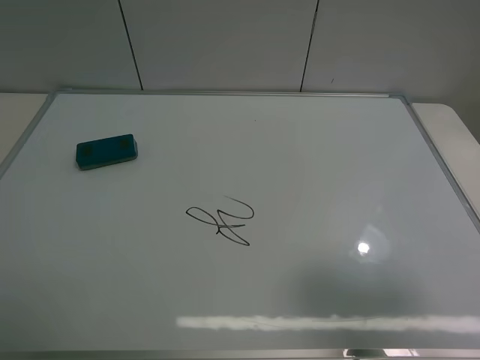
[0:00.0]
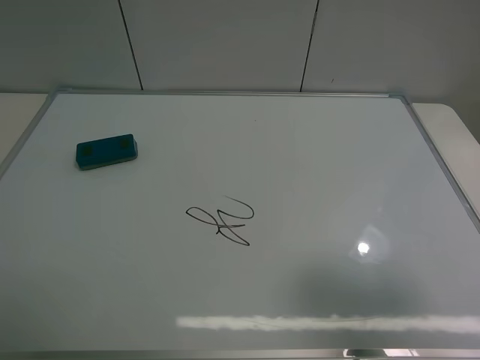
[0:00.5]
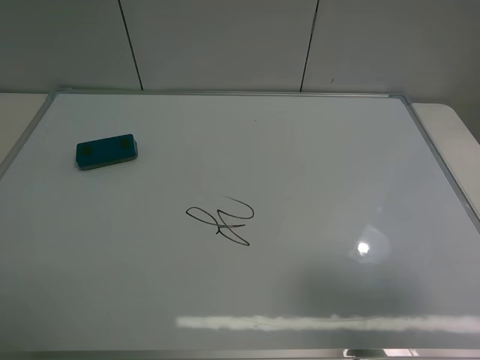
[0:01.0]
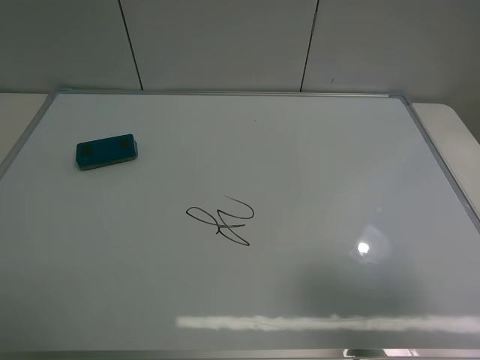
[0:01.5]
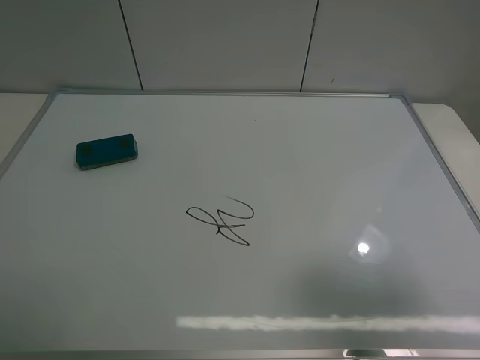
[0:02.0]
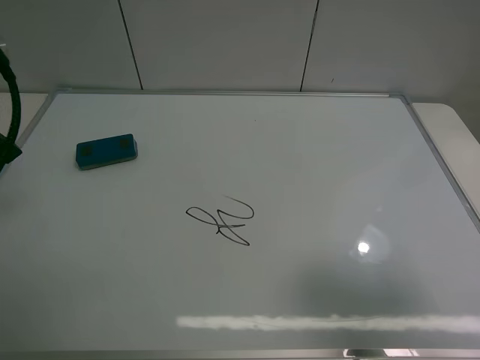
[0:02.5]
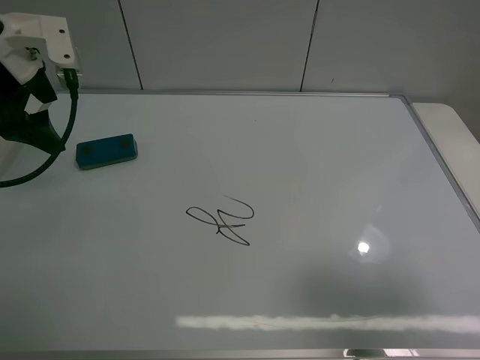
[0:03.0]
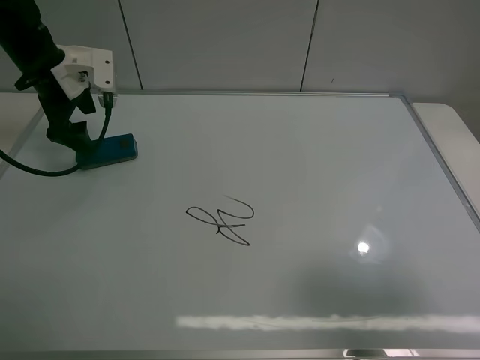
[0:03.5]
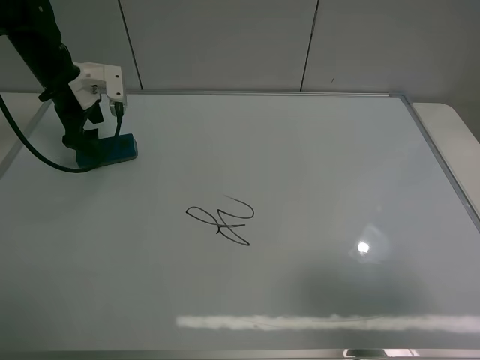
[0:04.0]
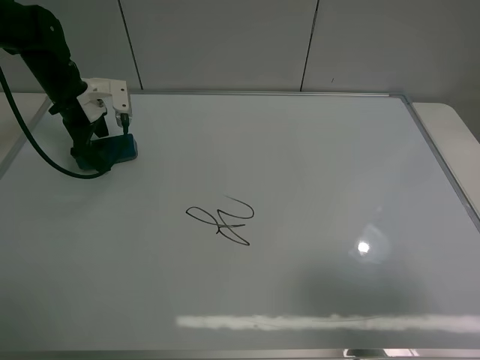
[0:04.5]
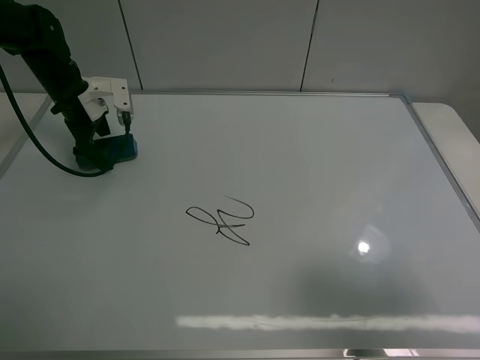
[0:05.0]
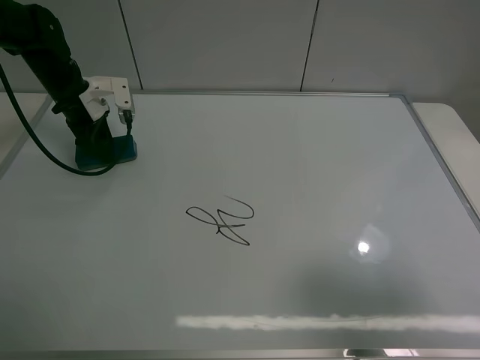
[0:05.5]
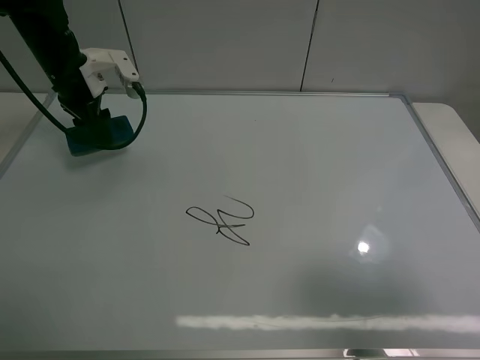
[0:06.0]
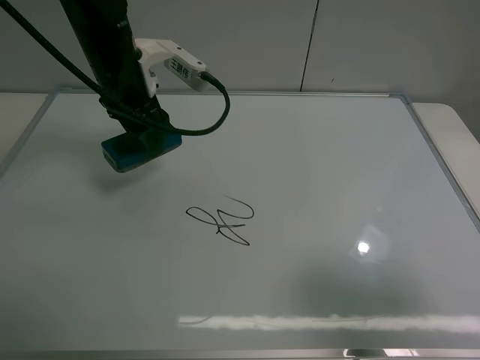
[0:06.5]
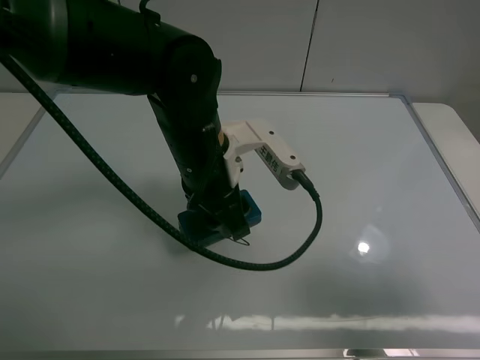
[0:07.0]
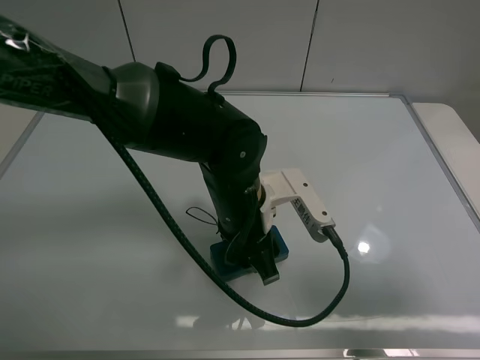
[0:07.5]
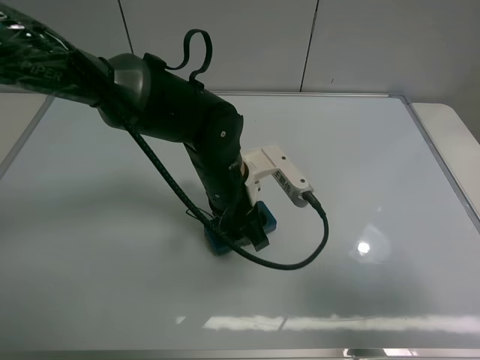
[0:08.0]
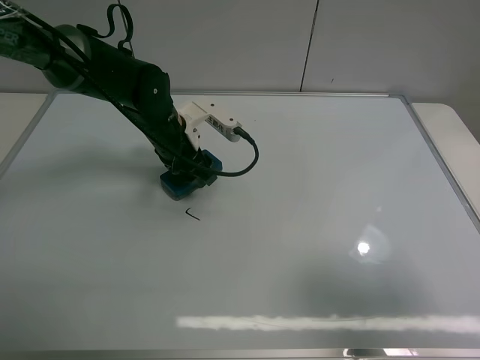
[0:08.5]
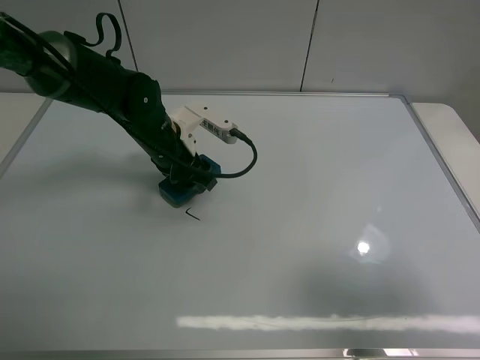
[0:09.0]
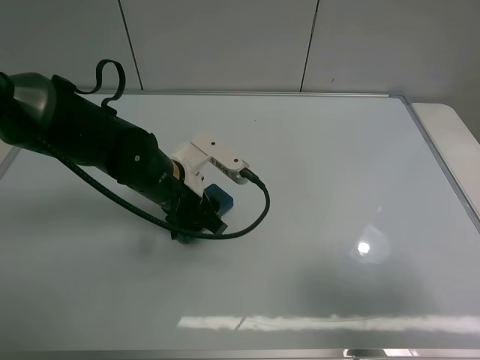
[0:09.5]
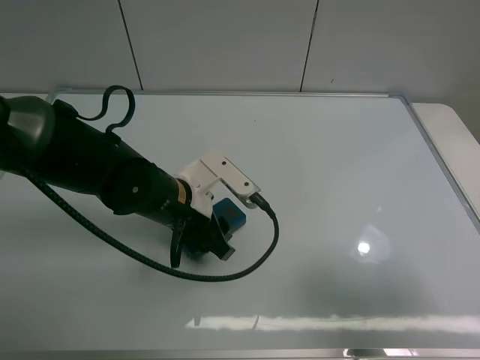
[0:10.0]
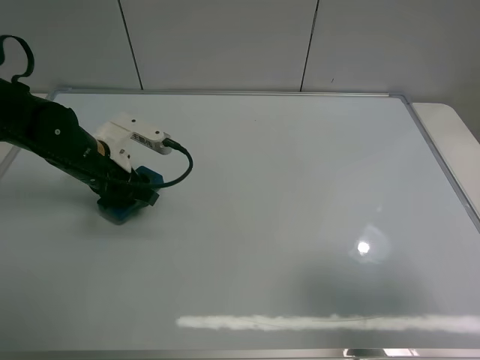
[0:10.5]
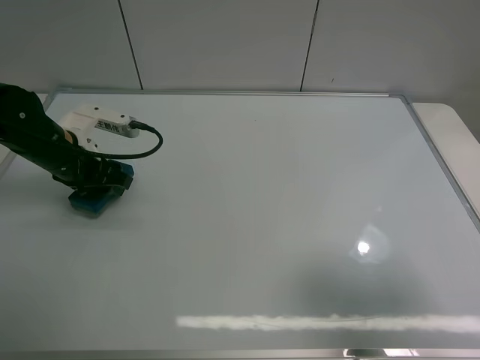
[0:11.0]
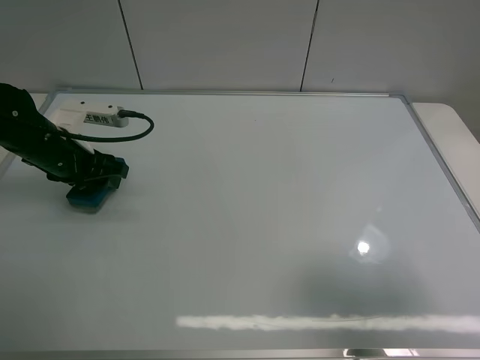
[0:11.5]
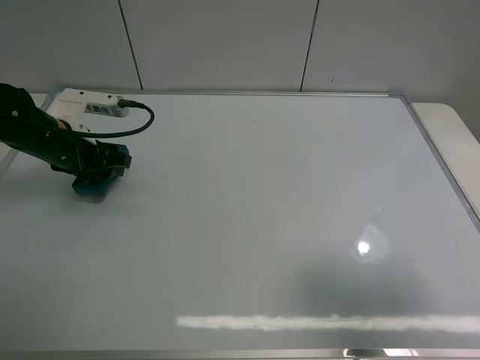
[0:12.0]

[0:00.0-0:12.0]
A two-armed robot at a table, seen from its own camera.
Task of the whole recording: use the left claw to pick up the whiteboard eraser, wipe the notes on the whiteboard clean, and then put them back in place.
Step, 0:00.0 to 0:05.5: Grasp the eraser with the left gripper.
Step, 0:06.0 to 0:10.5: Grasp the eraser and wipe the blackboard with the left gripper.
0:02.0 to 0:04.0: The left gripper moves forward, about 35 cm.
0:04.0 to 0:06.0: The left gripper closes.
0:06.0 to 0:08.0: The left gripper shifts some 25 cm to the right and backward.
0:08.0 to 0:10.0: The left gripper is displaced to the left by about 5 cm, and moves roughly 10 cm forward and comes back.
0:10.0 to 0:12.0: The left gripper heads to the left and forward, covering roughly 20 cm.

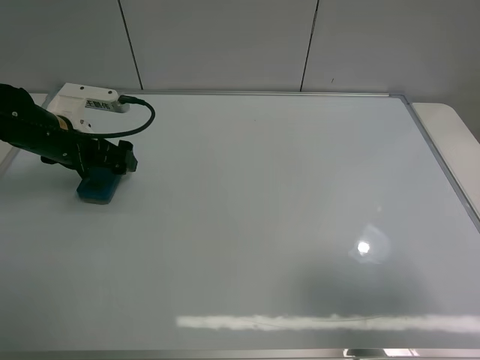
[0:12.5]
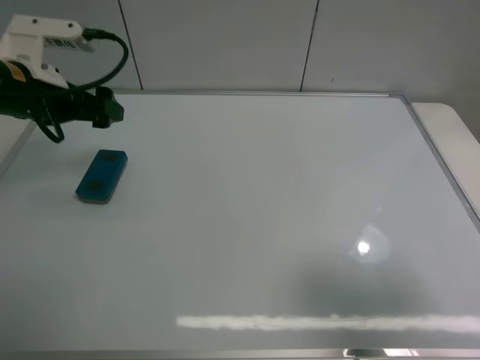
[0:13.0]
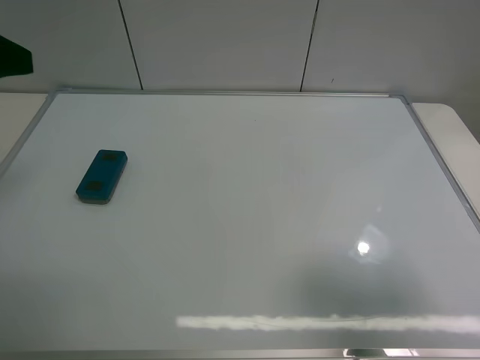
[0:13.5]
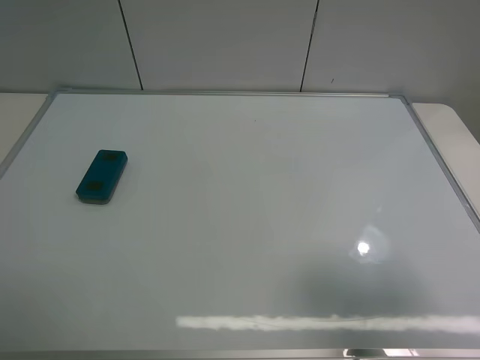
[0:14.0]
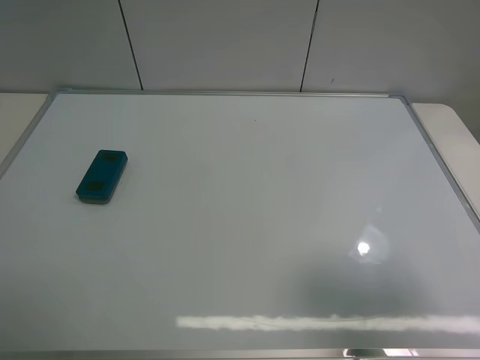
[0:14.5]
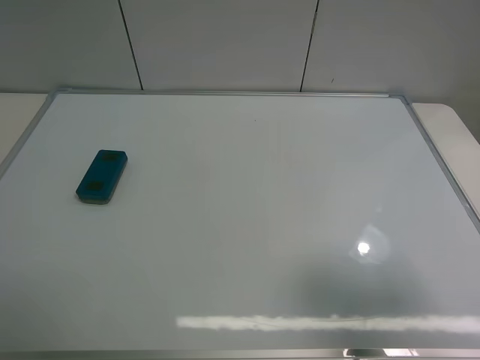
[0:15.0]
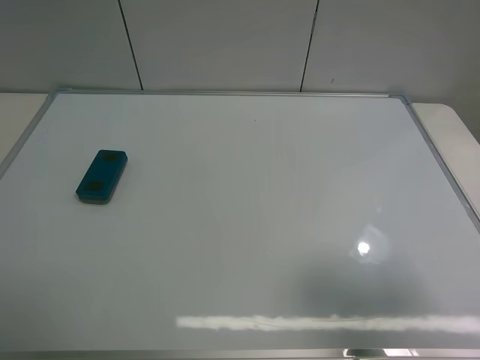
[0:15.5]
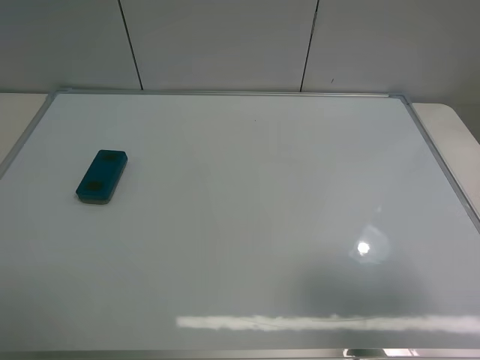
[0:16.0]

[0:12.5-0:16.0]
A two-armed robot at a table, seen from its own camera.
Task of the whole recording: use the left claw to pick up the whiteboard eraser, wipe the notes on the whiteboard clean, and then put them back in place.
0:12.5 to 0:14.5: The left gripper travels backward and upward by about 40 cm.

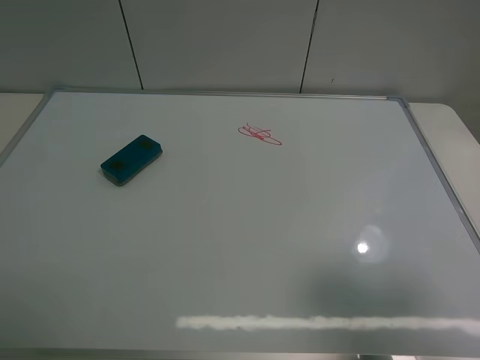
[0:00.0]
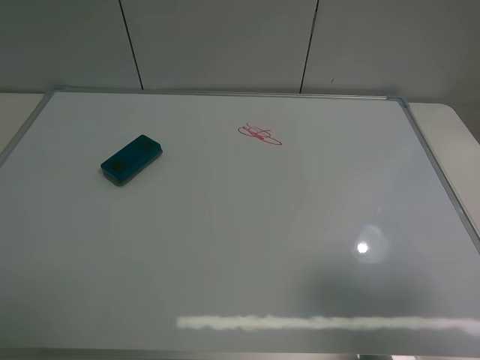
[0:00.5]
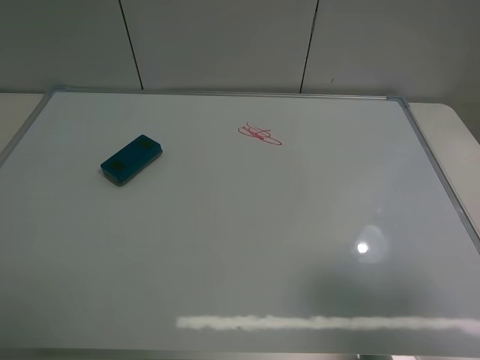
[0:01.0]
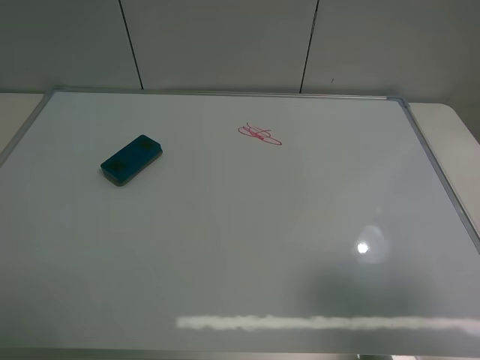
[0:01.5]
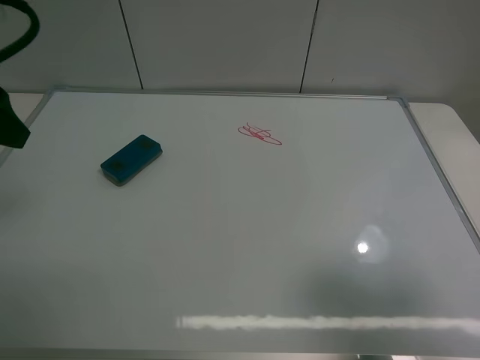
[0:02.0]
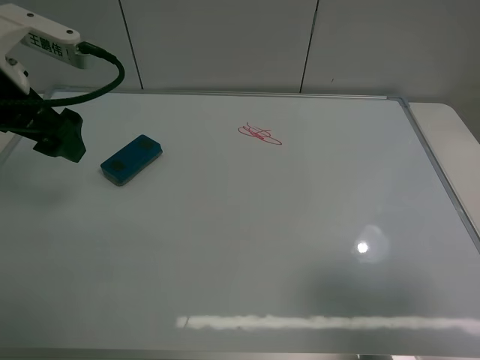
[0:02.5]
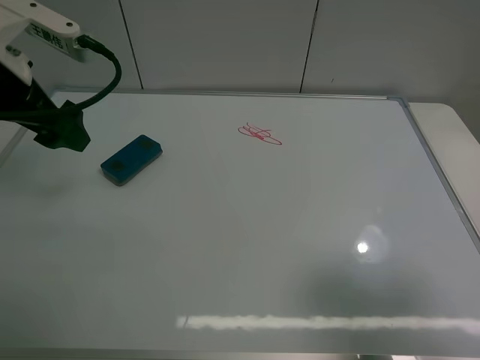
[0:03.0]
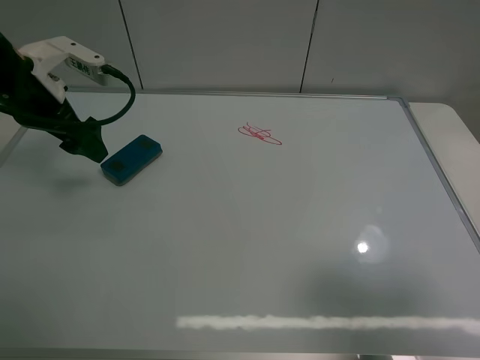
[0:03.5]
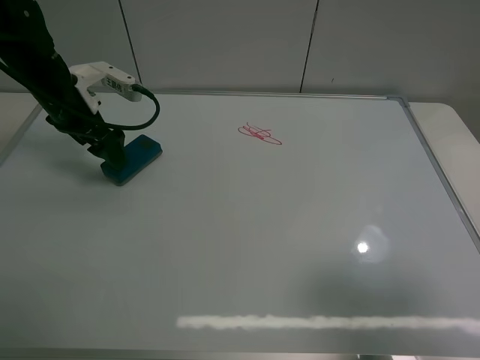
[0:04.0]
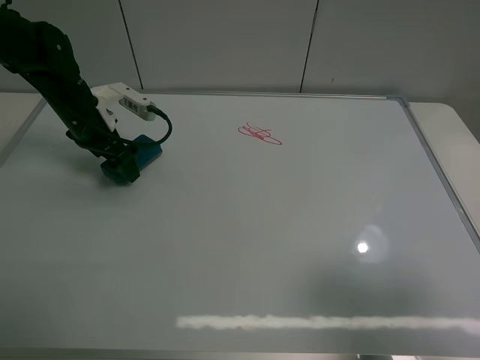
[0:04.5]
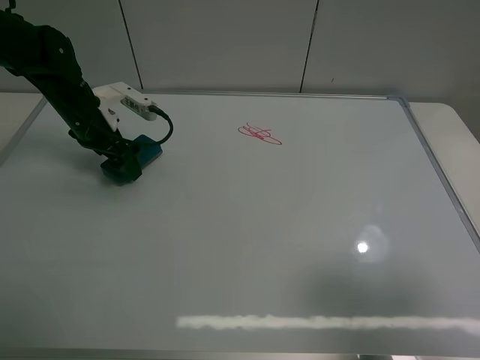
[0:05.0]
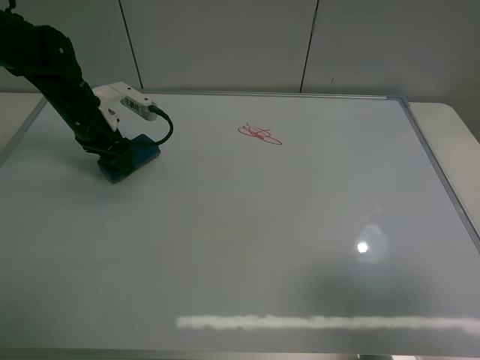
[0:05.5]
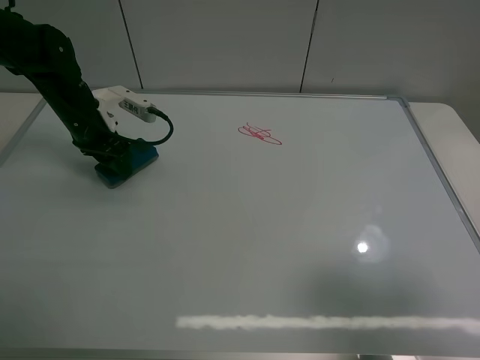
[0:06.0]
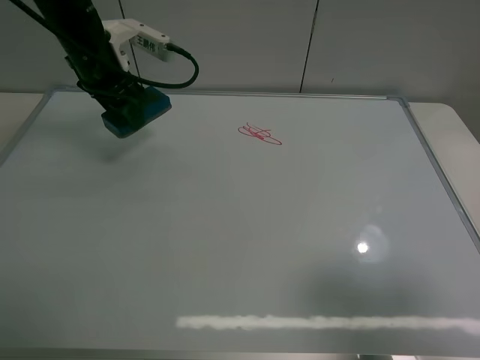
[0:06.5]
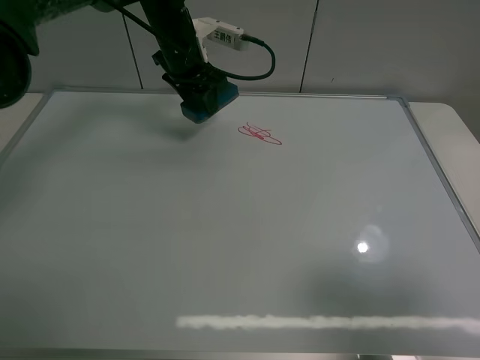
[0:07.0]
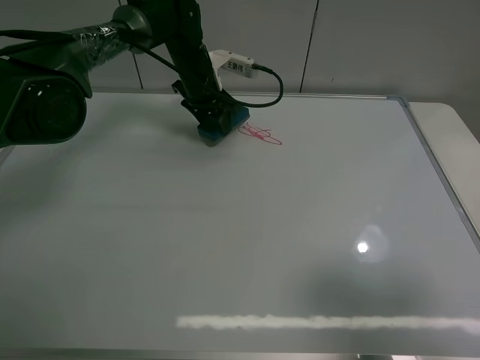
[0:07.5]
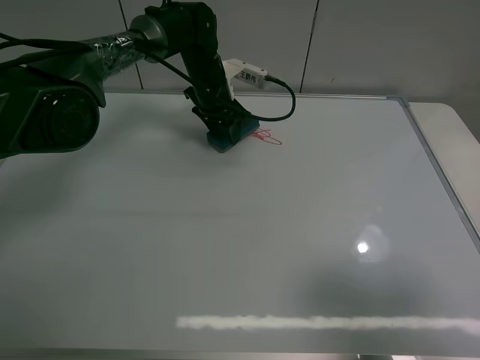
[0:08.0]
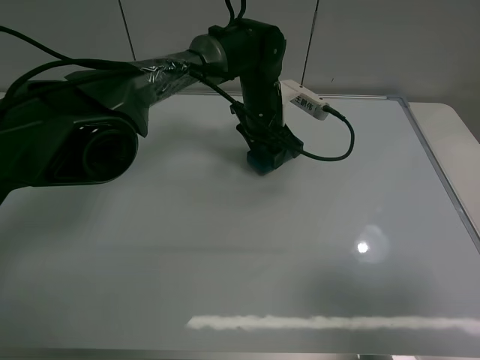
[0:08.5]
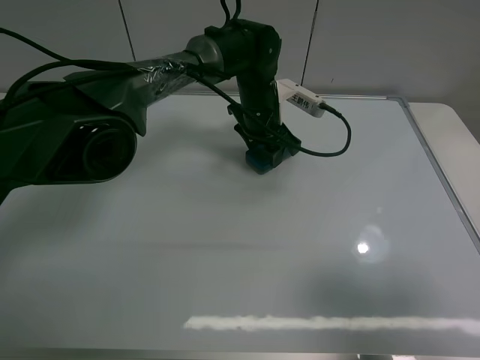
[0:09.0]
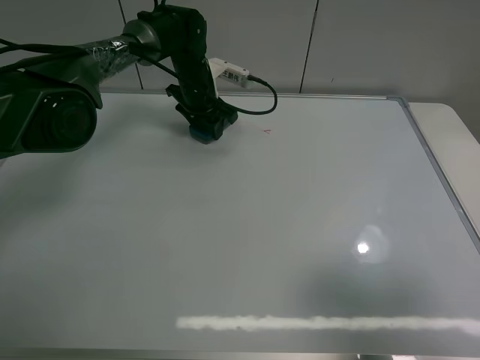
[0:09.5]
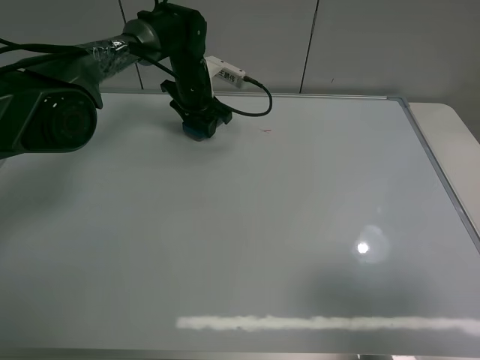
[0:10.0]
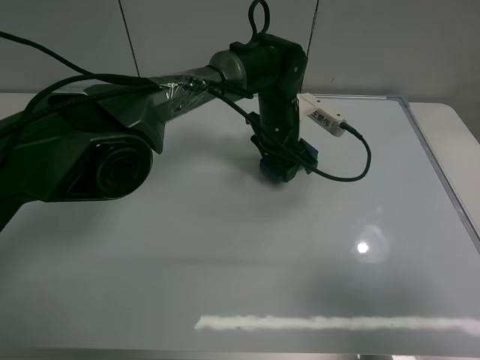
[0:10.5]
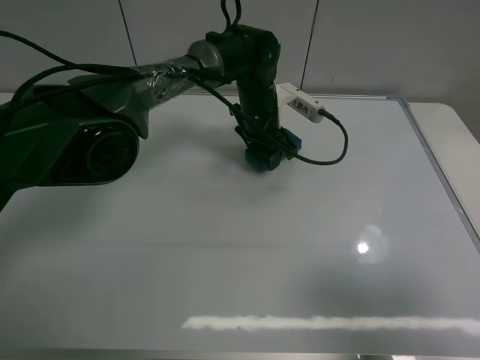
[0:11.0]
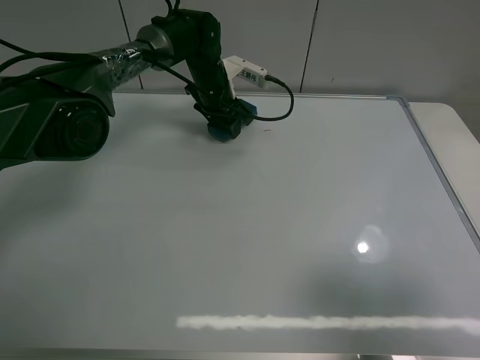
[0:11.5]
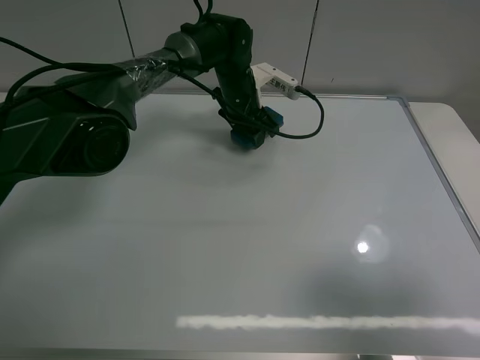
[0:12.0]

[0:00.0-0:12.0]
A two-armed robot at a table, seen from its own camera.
Task of the whole recording: use the left claw to pick up the whiteboard eraser, wipe the notes on the whiteboard clean, and then put them back in place.
Step, 0:00.0 to 0:05.5: Grasp the eraser with the left gripper.
0:00.0 to 0:02.0: The left gripper shifts some 20 cm forward.
0:02.0 to 0:04.0: The left gripper heads forward and downward, covering roughly 25 cm.
0:04.0 to 0:06.0: The left gripper closes.
0:06.0 to 0:08.0: The left gripper moves to the right and forward, roughly 20 cm.
0:08.0 to 0:10.0: The left gripper reaches roughly 10 cm to the right, then returns.
0:10.0 to 0:12.0: The left gripper goes left and right, some 15 cm each way, reversing 2 times.
